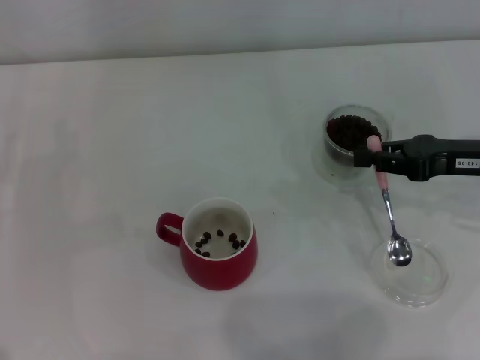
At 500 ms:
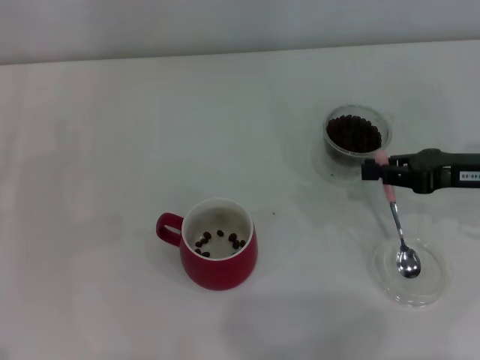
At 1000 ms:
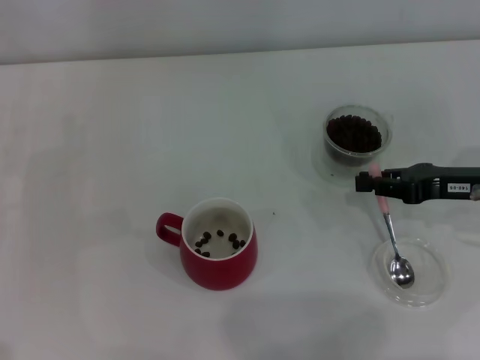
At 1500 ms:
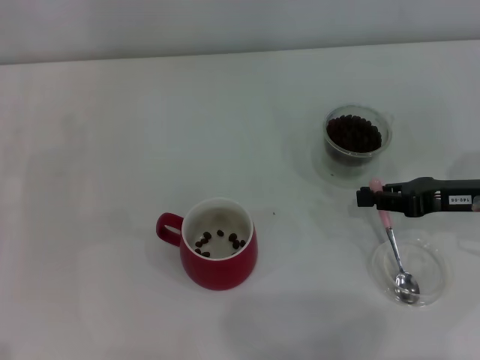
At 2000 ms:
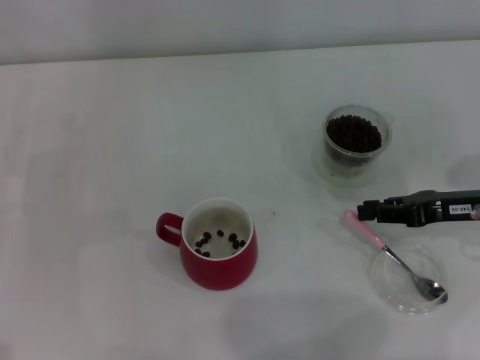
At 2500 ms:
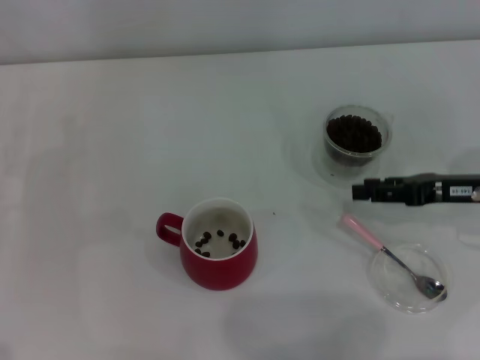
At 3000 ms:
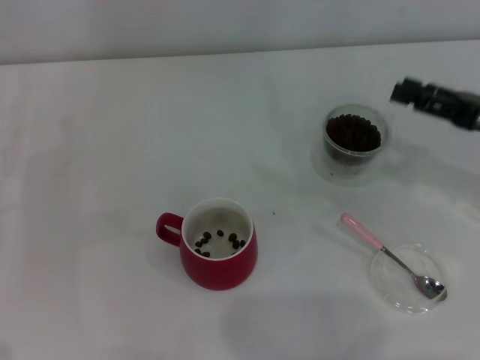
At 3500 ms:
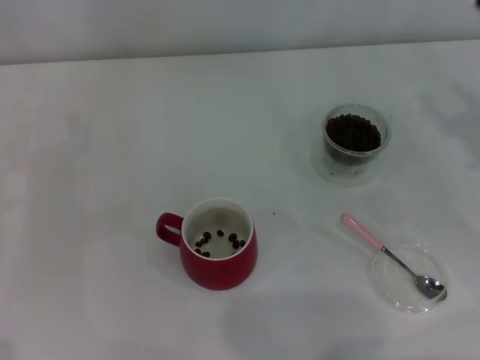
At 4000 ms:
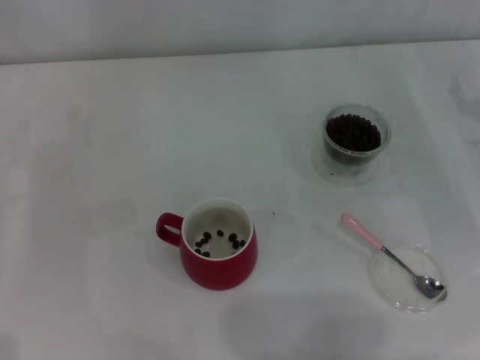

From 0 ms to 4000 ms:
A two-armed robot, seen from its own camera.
Task of the whole recording: Use a pink spoon to take out the coffee beans from the glass and pour them into the red cup.
Step, from 0 ms to 2500 ms: Place the spoon back in its original place with the right gripper.
From 0 ms to 2000 ms: The grippers make only small movements.
From 2000 ms to 4000 ms: The right gripper opens up.

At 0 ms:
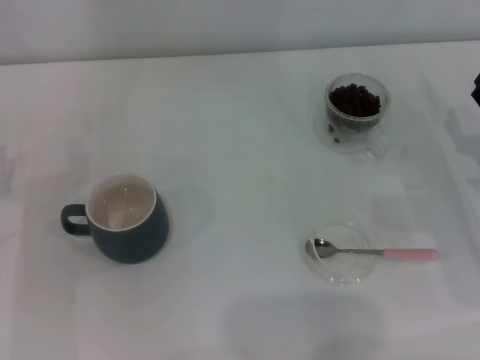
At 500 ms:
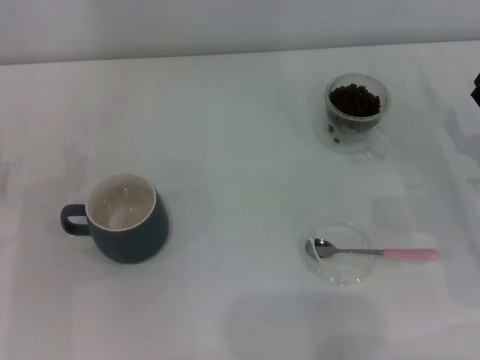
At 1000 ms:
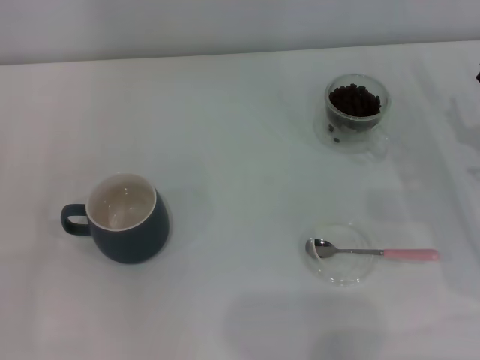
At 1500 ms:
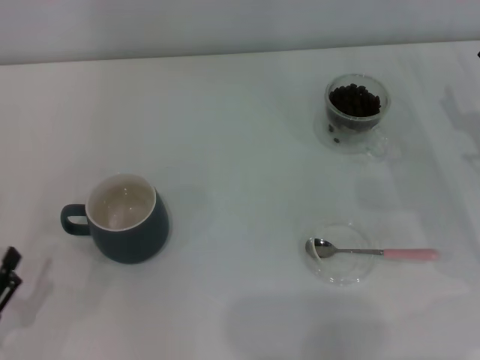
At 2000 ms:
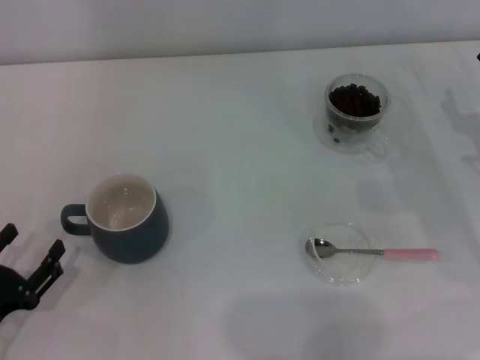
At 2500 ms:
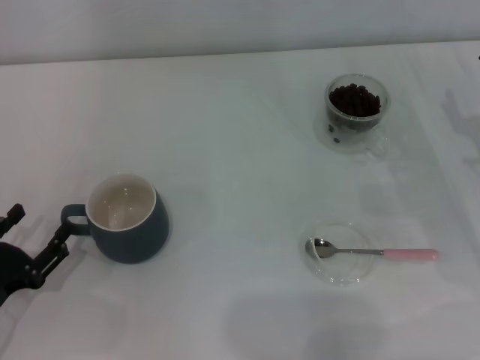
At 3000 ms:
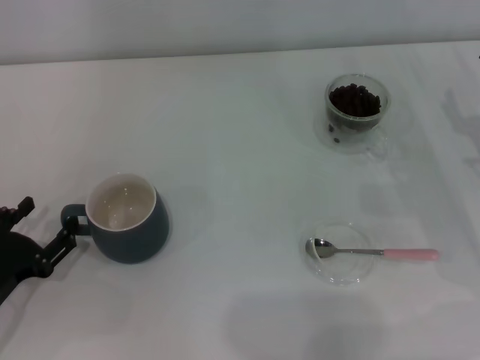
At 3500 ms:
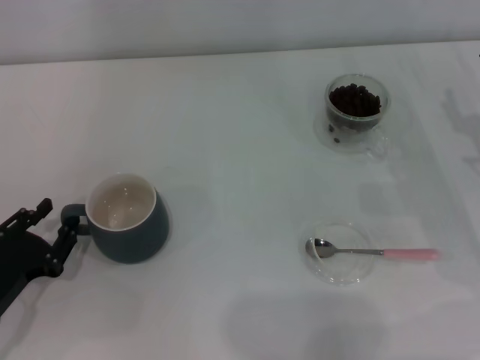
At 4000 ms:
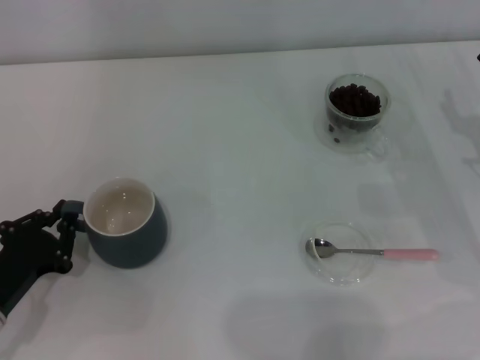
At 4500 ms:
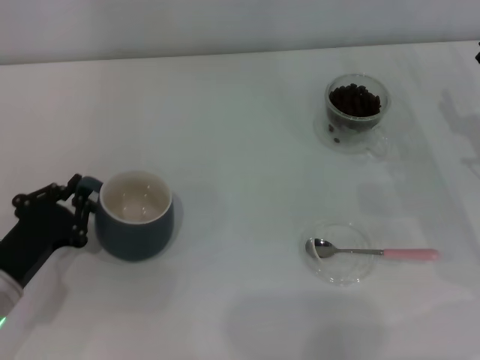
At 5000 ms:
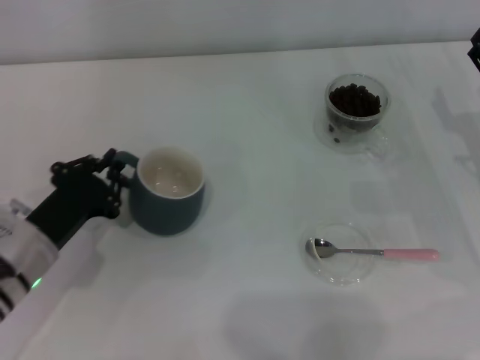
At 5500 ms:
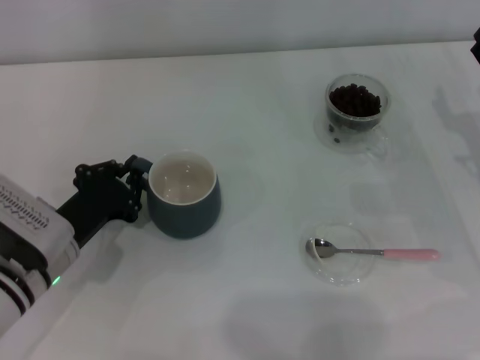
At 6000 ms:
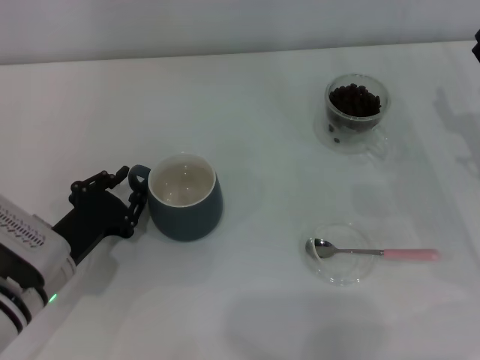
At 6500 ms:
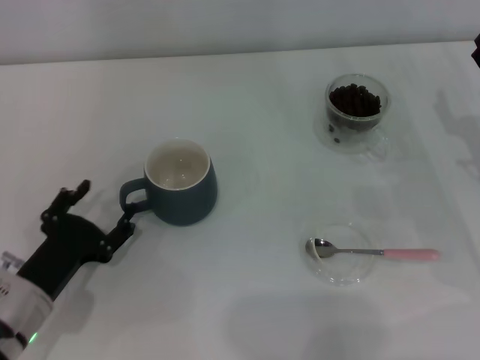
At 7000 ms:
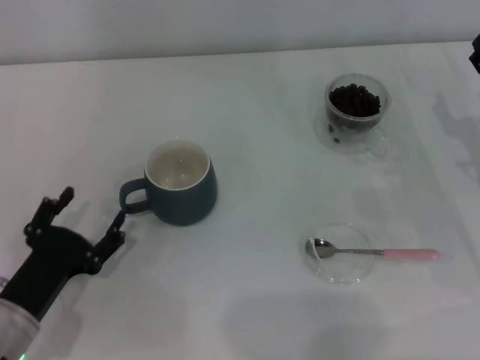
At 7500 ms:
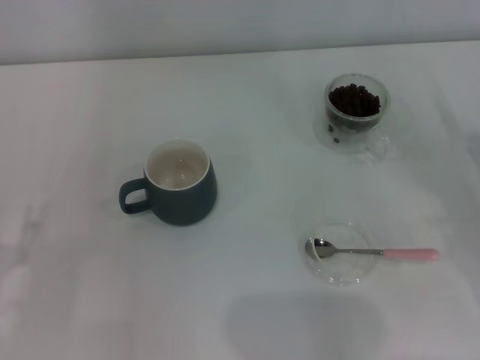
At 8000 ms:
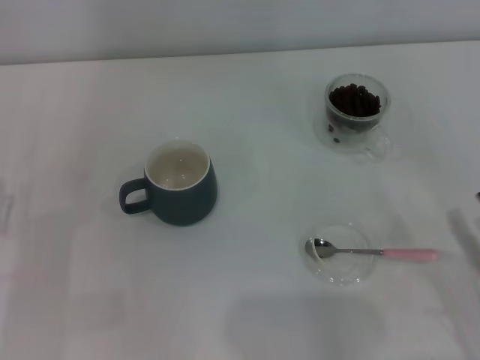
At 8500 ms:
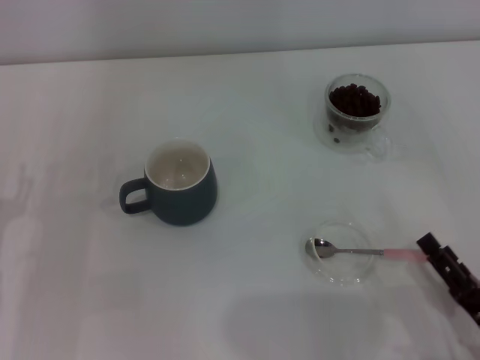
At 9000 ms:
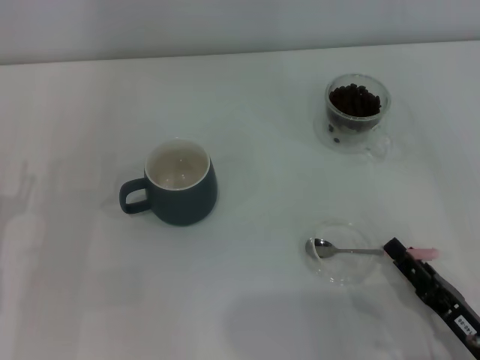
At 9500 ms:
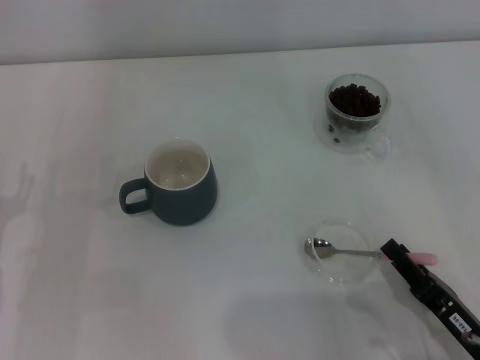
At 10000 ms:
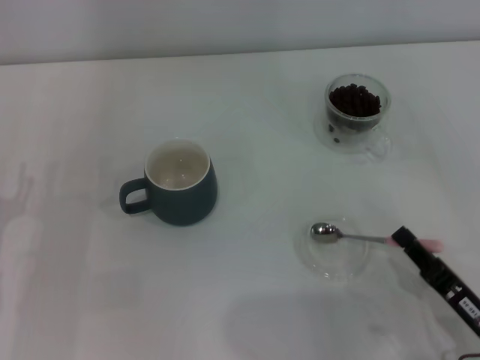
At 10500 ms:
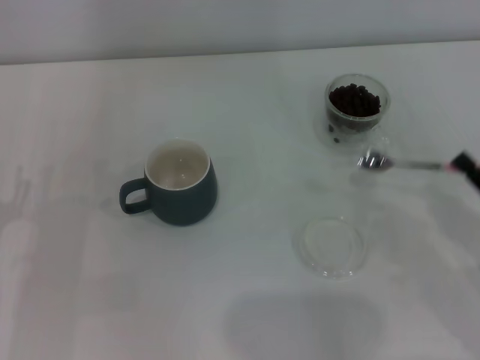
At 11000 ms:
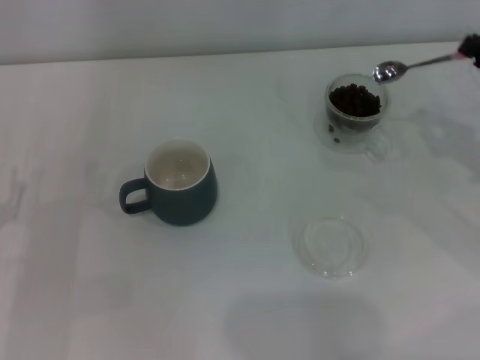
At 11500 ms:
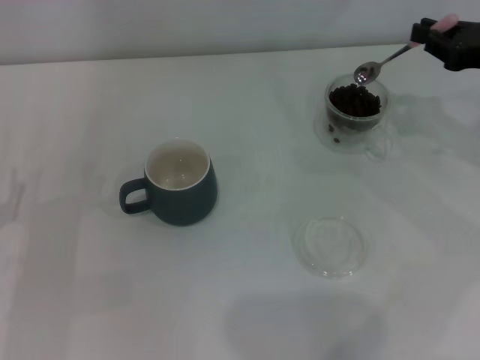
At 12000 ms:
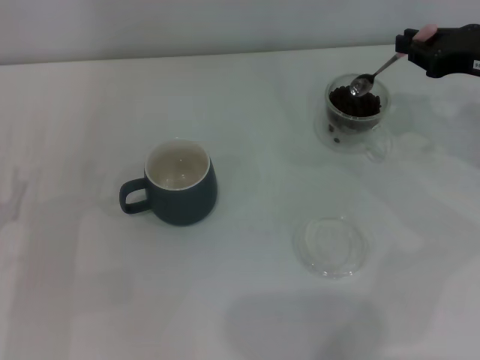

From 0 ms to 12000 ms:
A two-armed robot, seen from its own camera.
Task of the whole recording: Use a pink spoon to take out the coffee beans from the glass and pour them into the gray cup.
Step, from 0 ms to 7000 ms: Move the cup to the center of view with the left gripper.
Step, from 7500 ms to 10000 ms: Pick up the spoon with the right gripper.
From 0 ms to 2000 ms: The left gripper moves backward, approximately 10 cm.
From 2000 ms to 4000 ms: The left gripper moves about 5 cm, and closes.
From 4000 ms to 6000 ms: The left gripper goes some 5 cm to the right.
From 6000 ms to 8000 ms: The right gripper moves backward, some 20 cm; the left gripper is displaced to the left and backward by about 10 cm, and opens up.
From 8000 ms to 10000 ms: The right gripper goes approximately 5 cm to the left, and closes up.
From 10000 ms to 12000 ms: The right gripper is displaced forward and upward by some 30 cm.

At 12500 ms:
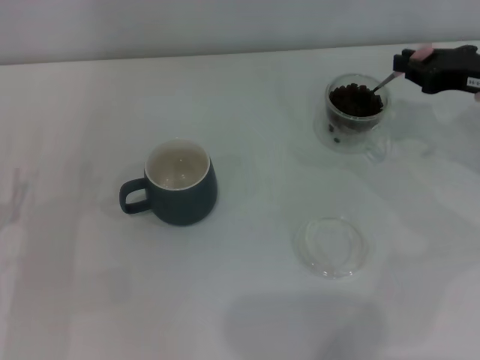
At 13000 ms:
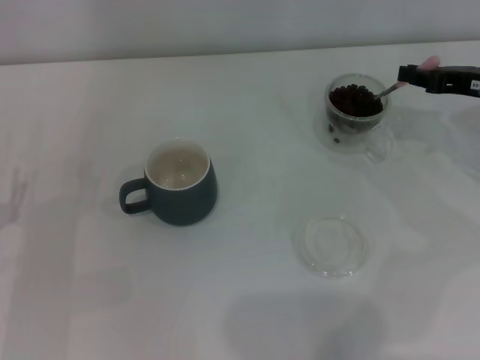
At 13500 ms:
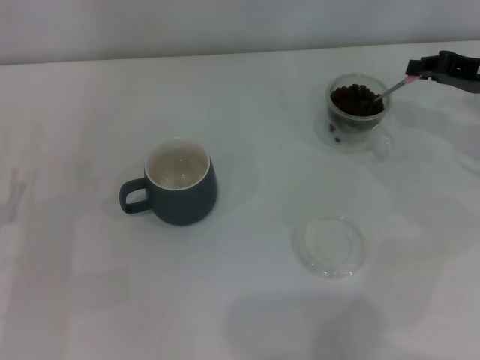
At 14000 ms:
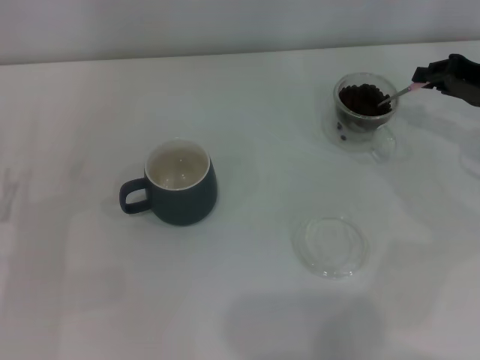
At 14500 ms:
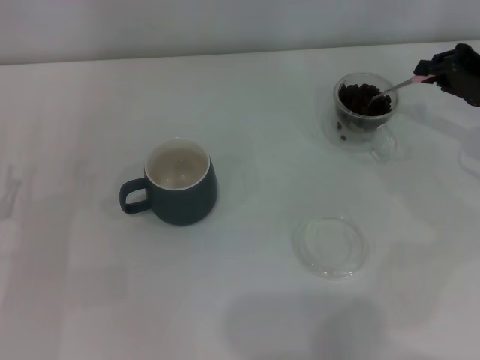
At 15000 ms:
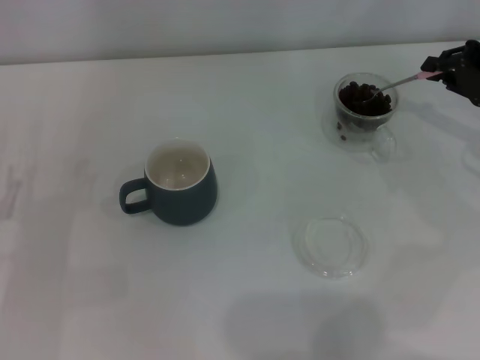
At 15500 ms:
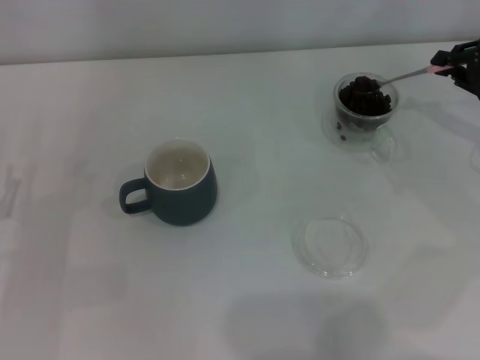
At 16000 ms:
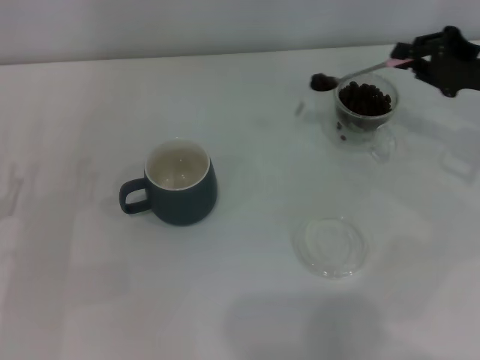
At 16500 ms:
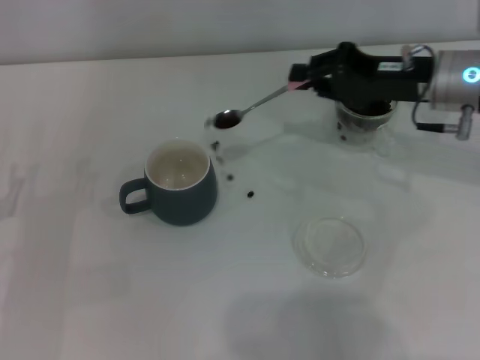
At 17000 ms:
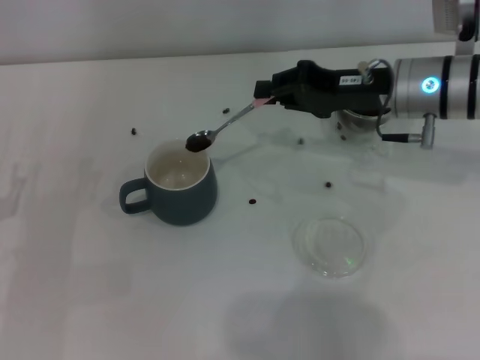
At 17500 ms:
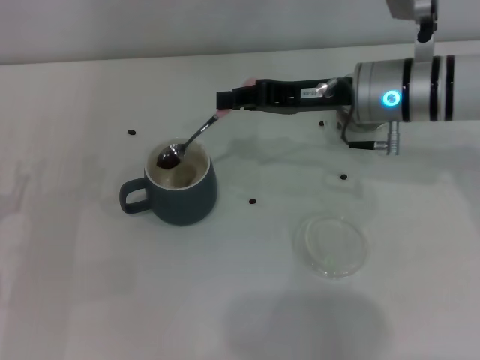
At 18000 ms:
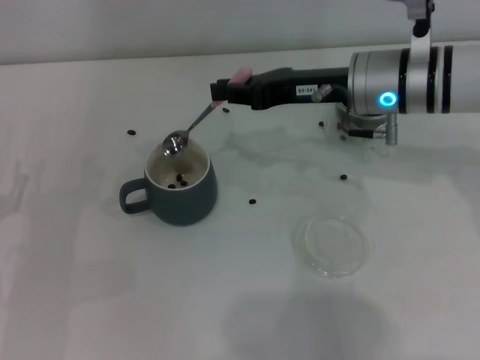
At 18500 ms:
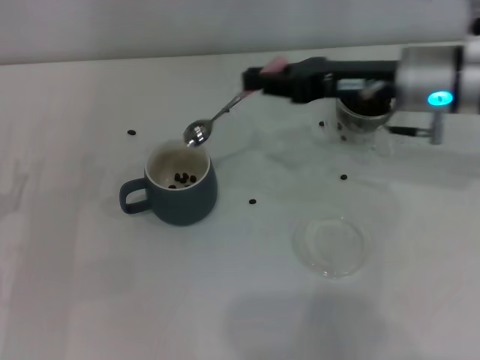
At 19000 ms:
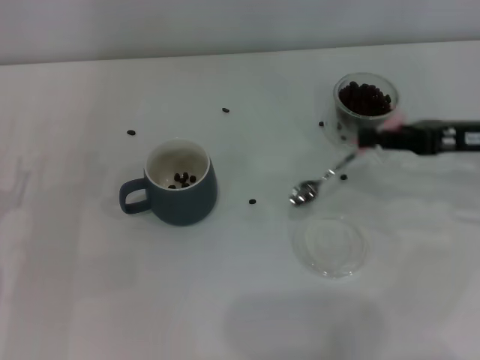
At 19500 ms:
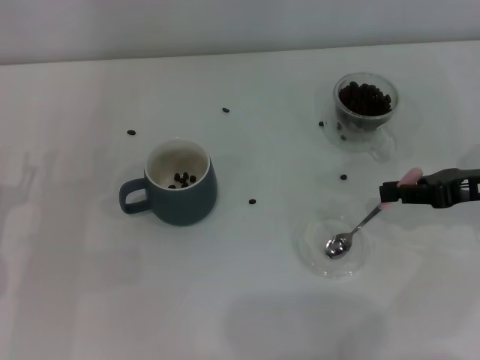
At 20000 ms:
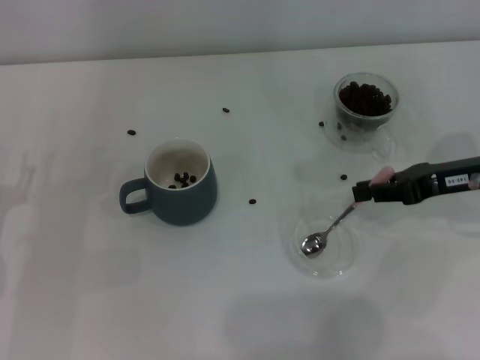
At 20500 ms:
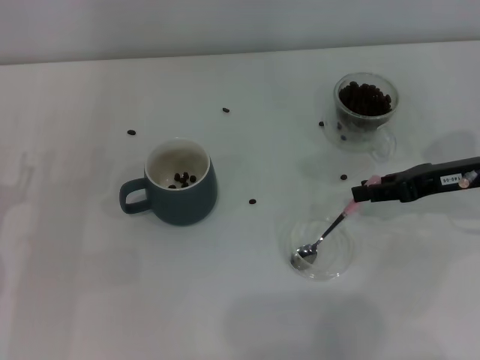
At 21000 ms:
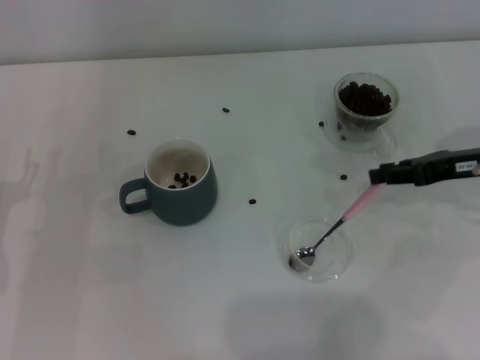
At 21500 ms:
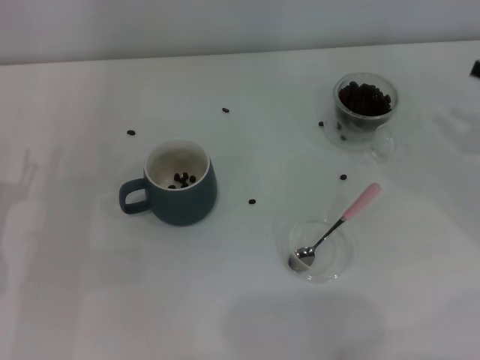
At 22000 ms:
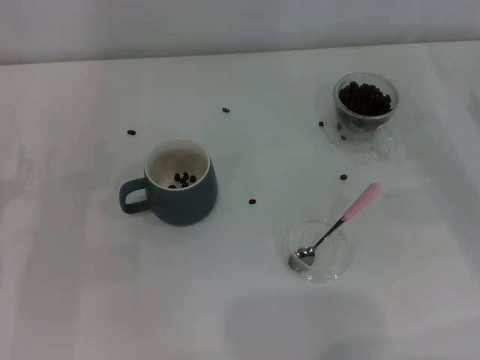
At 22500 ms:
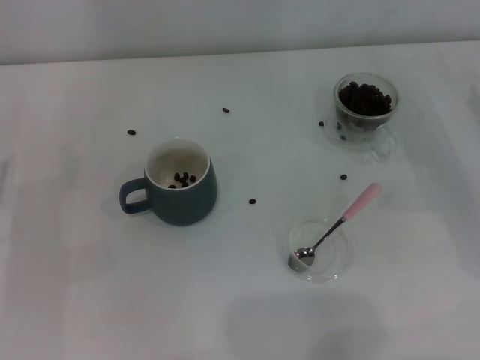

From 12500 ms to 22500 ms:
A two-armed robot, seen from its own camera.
Task of the whole recording: Use a pink spoon to take out the coffee beans from the glass and pour them into the gray cup.
Step, from 12500 ms to 18000 ms: Scoop a spoonful of beans into the cup with the right gripper.
Step, from 18500 ms to 21000 ms: Place the spoon back in its original place with the right gripper.
From 14500 ms to 16500 ms: The right gripper shifts roughly 10 cm to the left.
From 18500 ms to 20500 ms: The right gripper goes some 10 cm to the right and downward.
From 20500 ms to 22500 ms: The right gripper is displaced to the right by roughly 5 cm, and opens its fingers.
